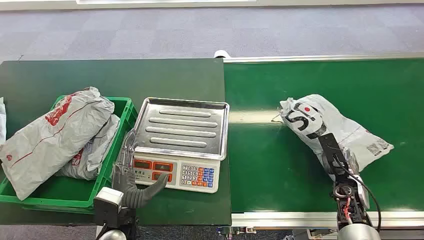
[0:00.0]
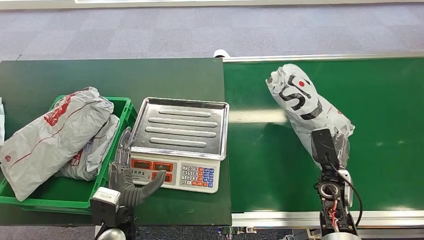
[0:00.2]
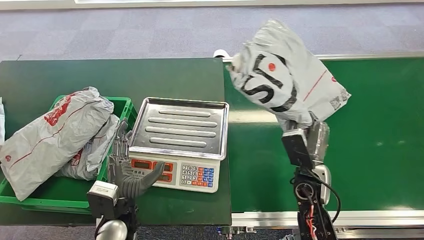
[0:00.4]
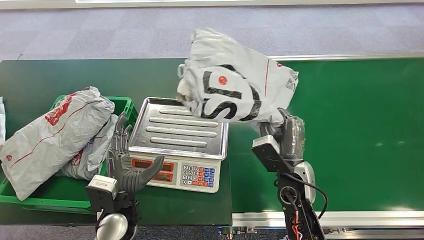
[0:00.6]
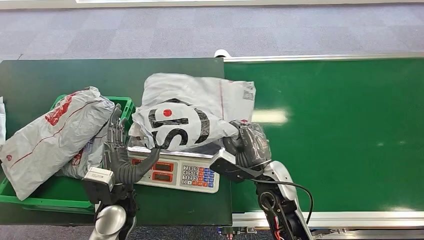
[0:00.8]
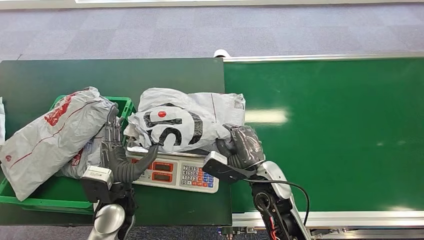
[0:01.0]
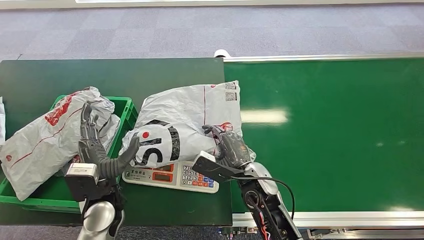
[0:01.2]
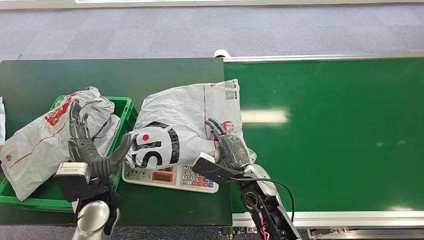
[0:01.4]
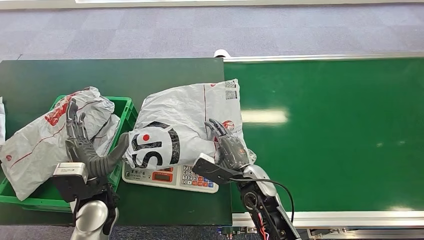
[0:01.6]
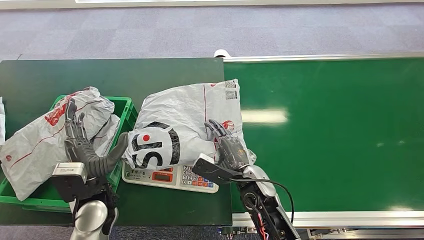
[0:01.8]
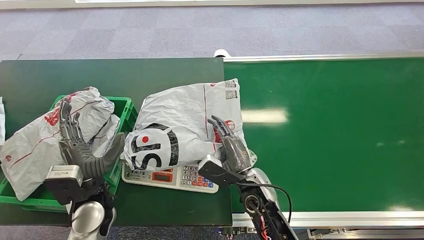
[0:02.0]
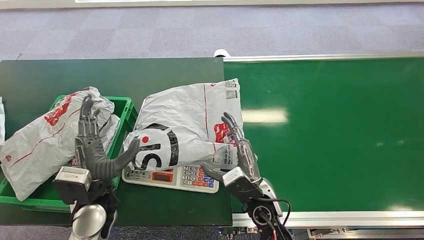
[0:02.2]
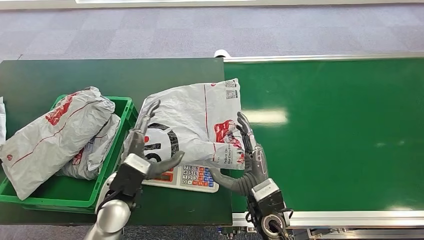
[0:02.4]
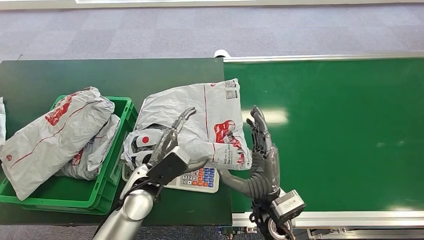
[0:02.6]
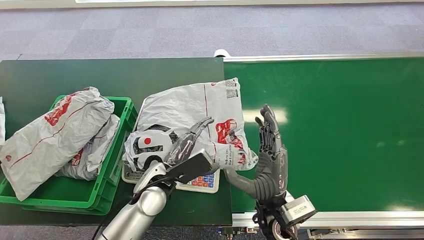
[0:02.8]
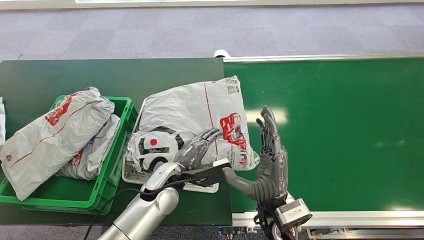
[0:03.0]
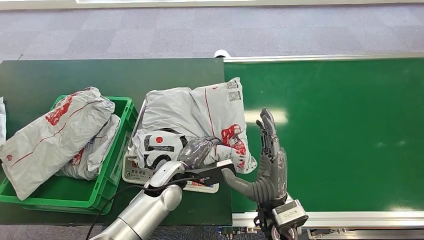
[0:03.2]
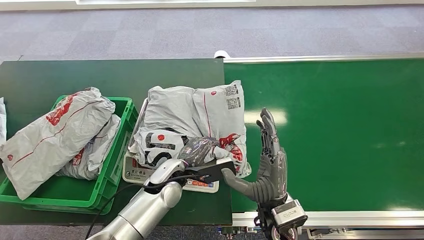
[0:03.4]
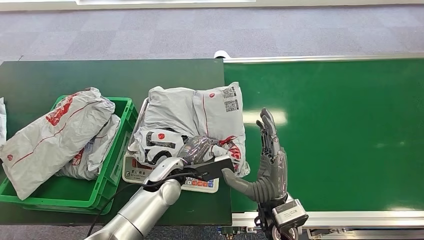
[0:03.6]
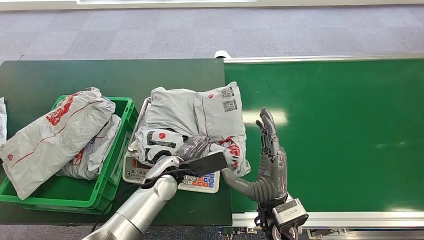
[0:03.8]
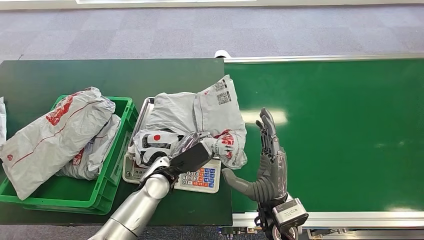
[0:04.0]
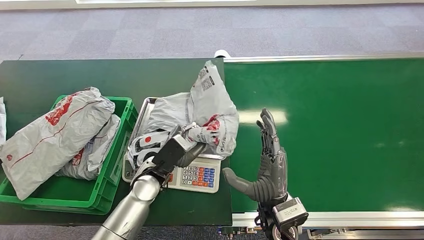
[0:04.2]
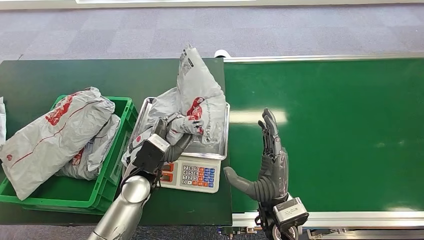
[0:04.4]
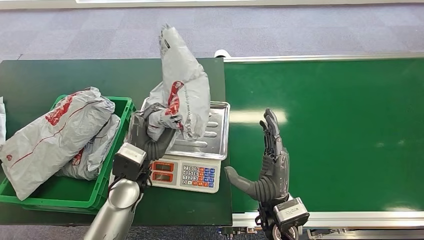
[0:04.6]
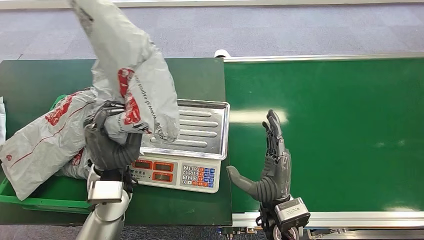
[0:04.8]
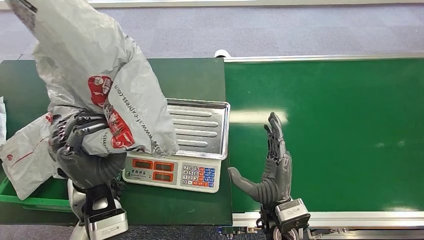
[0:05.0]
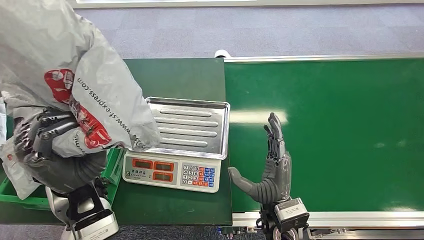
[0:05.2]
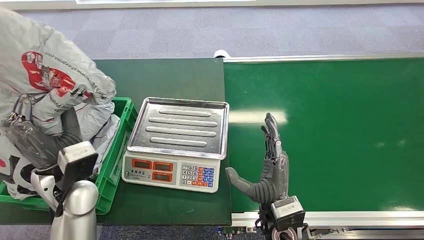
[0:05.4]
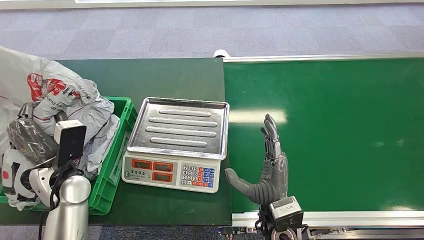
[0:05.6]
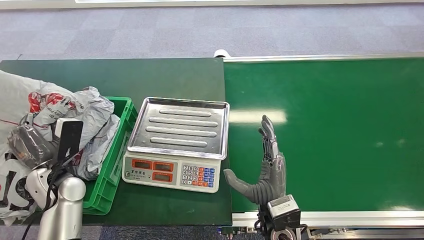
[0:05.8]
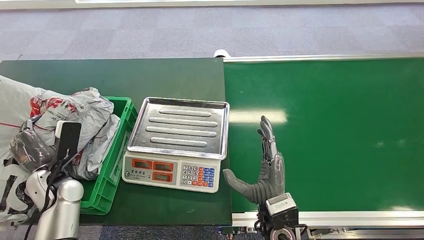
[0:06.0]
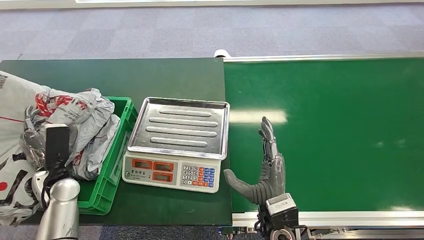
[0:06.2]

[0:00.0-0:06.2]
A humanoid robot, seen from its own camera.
Step, 0:00.0 to 0:00.4: Pick up the package from the conveyor belt.
Step, 0:00.6 to 0:01.4: Place the package onto the inbound machine.
Step, 0:03.4 to 0:04.8: Pick up the package from the inbound machine.
Step, 0:05.2 to 0:06.2: Place the package into the parcel locker.
0:01.6 to 0:03.2: The right hand heads backward, covering some 5 cm, while the left hand travels to the right and forward by some 15 cm.
0:03.2 to 0:04.6: The left hand heads to the left and upward, covering some 10 cm.
